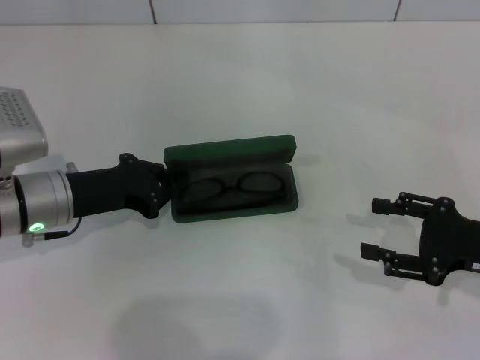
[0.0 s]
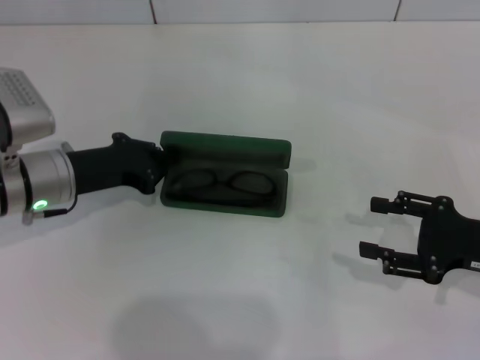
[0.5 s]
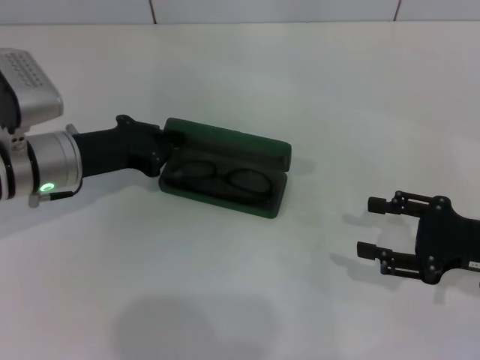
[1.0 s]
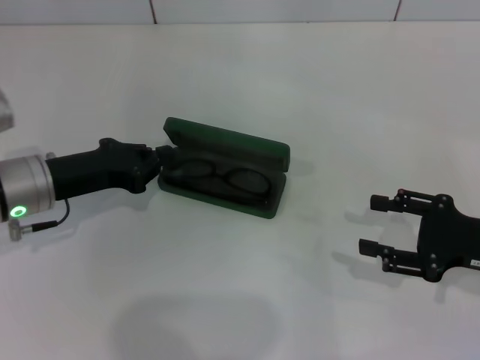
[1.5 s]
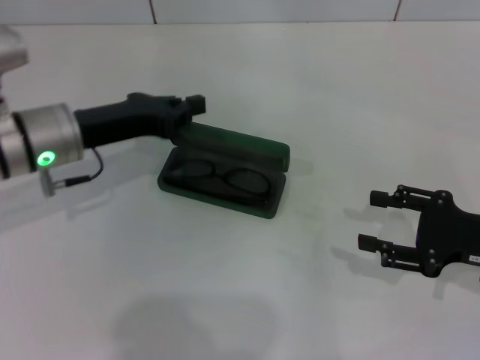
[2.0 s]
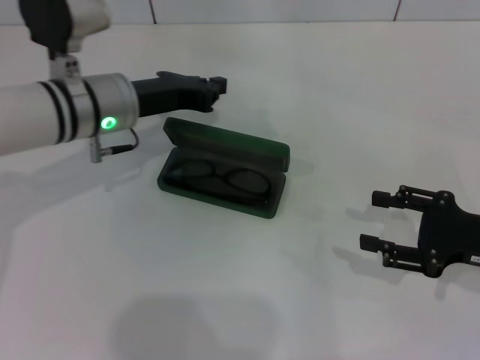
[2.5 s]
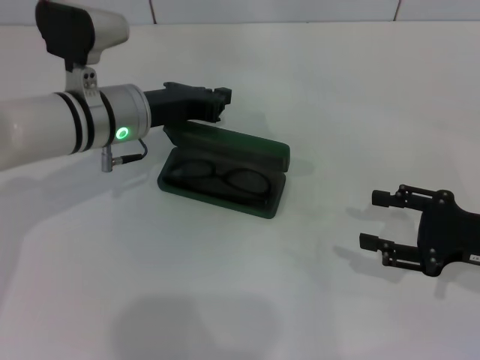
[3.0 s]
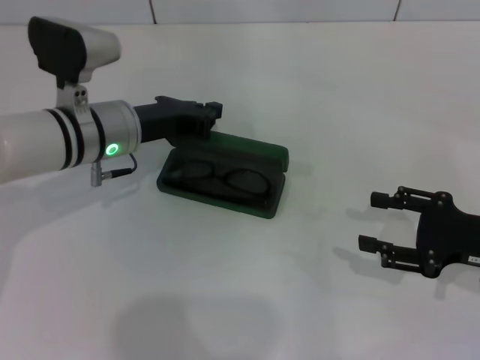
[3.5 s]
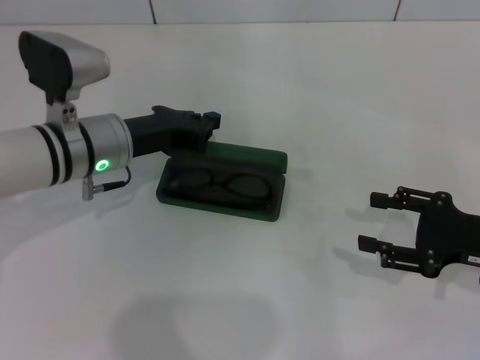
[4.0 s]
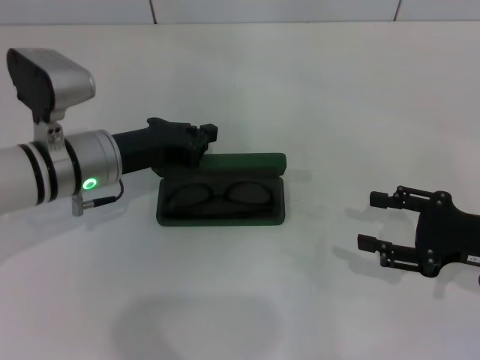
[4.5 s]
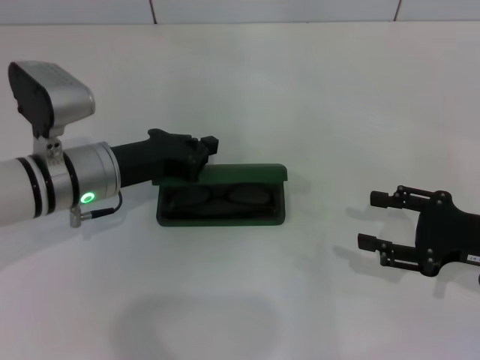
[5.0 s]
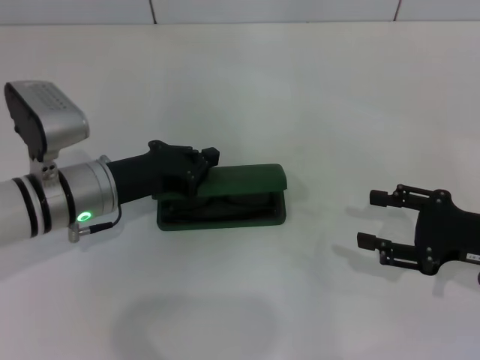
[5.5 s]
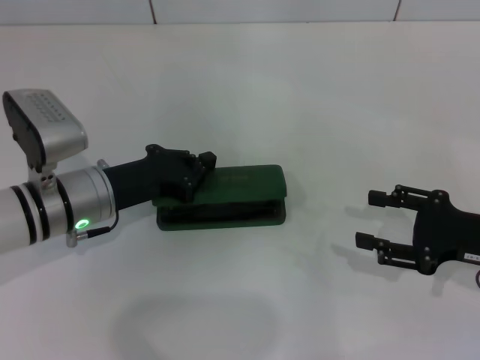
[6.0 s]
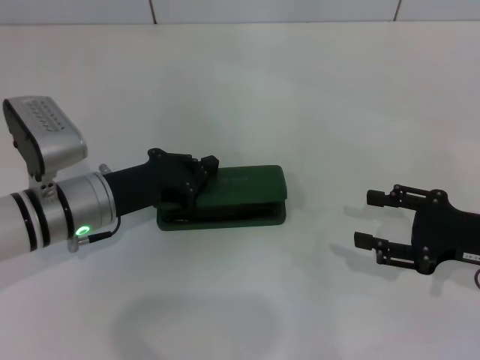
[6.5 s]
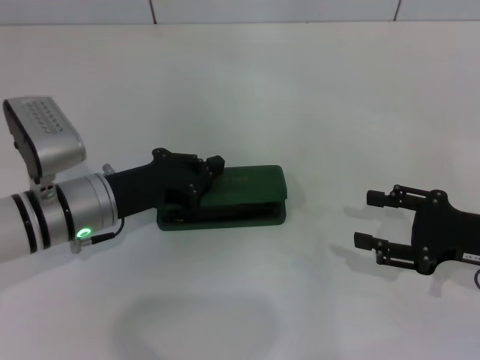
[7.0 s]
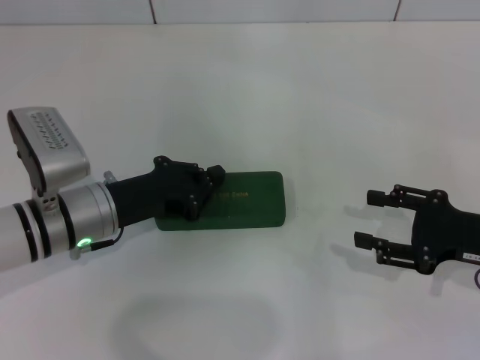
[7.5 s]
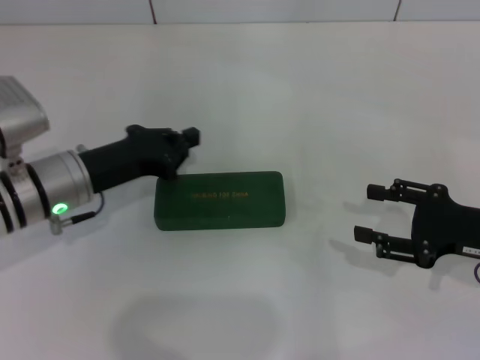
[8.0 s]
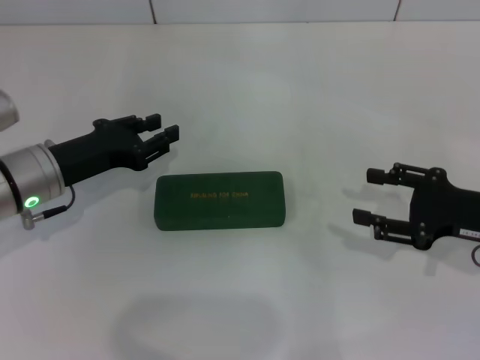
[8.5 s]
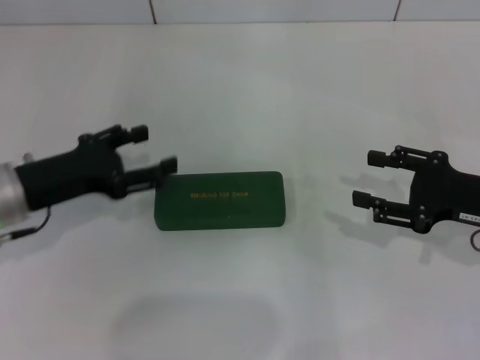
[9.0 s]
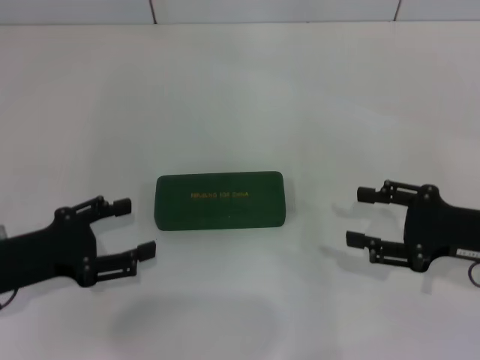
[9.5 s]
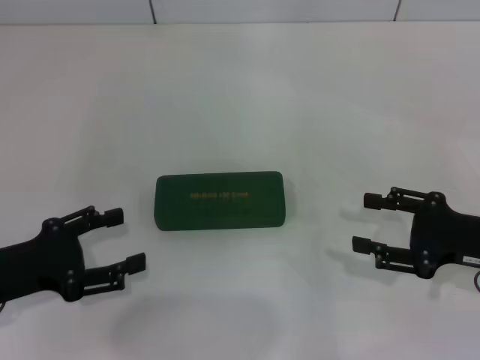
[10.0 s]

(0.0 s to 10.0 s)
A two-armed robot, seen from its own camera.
Step, 0.0 s - 7.0 s: Close the glasses case with your left hand.
0.0 s - 2.0 s: The left gripper moves about 5 cm.
4.0 s - 6.0 s: The left gripper changes place by some 5 cm.
6.0 s - 8.0 s: There are only small adjustments of the grippers.
8.0 s - 10.0 s: The left gripper travels backward and to the left by approximately 15 cm, and opens up.
